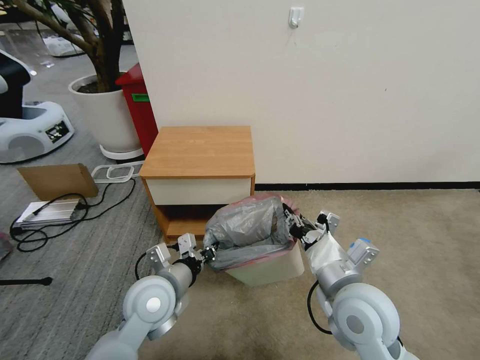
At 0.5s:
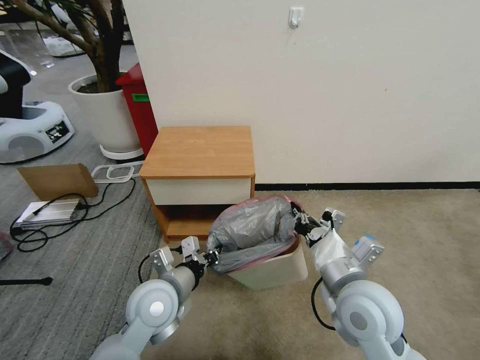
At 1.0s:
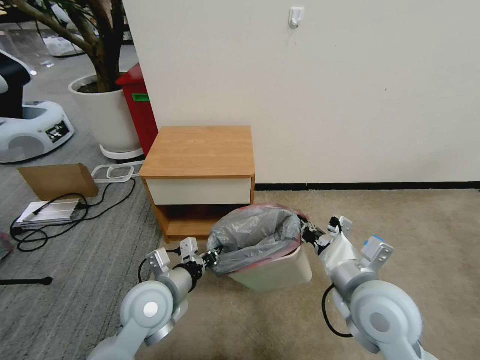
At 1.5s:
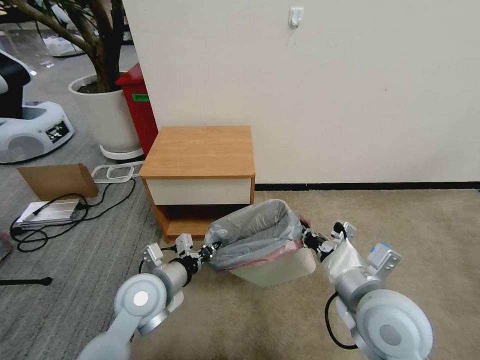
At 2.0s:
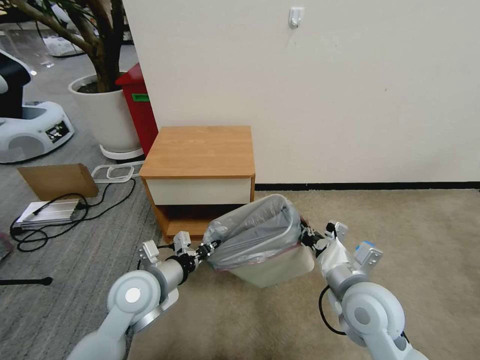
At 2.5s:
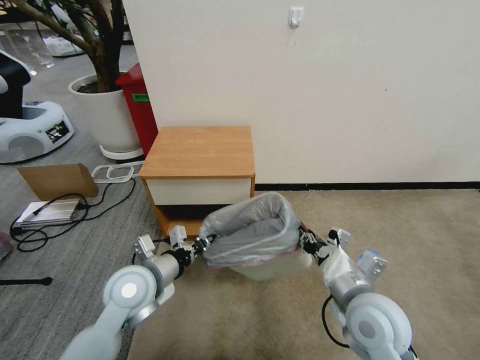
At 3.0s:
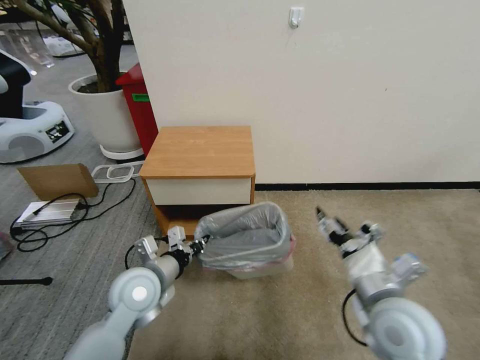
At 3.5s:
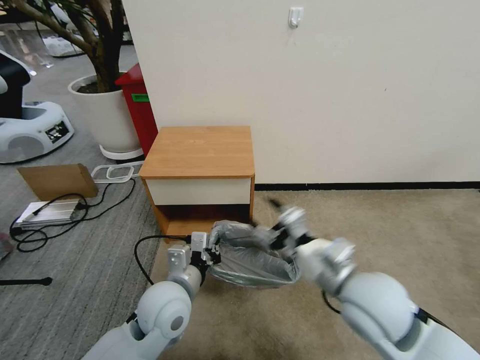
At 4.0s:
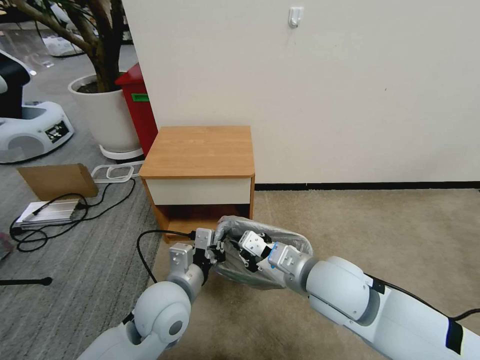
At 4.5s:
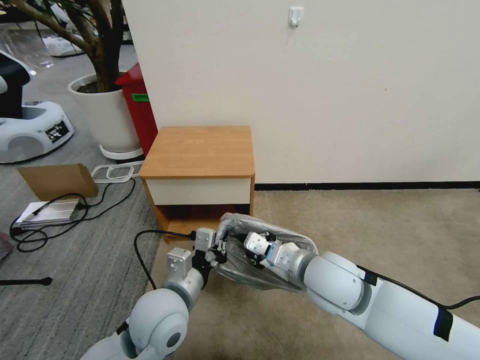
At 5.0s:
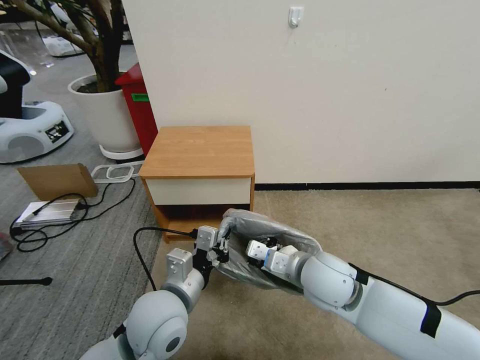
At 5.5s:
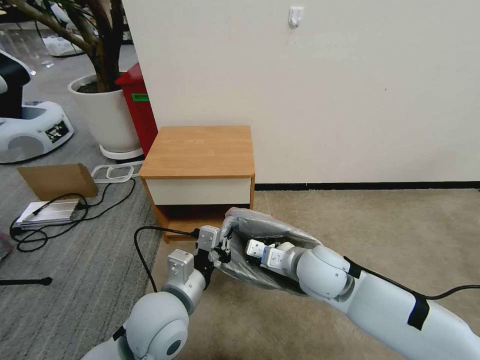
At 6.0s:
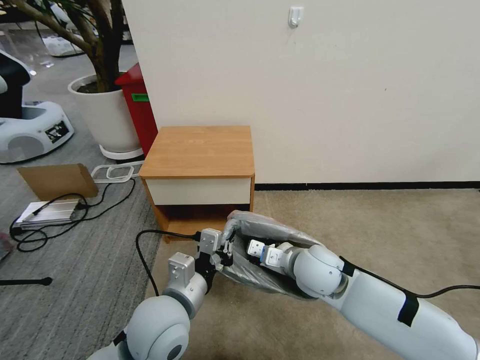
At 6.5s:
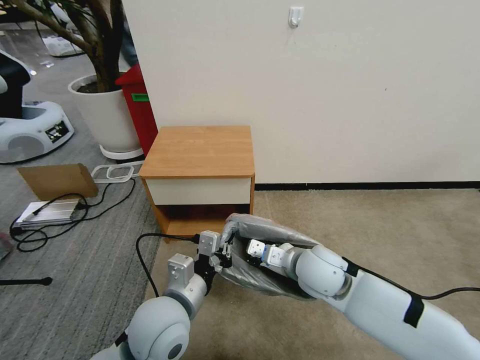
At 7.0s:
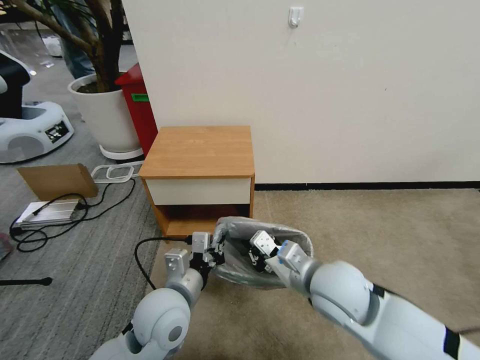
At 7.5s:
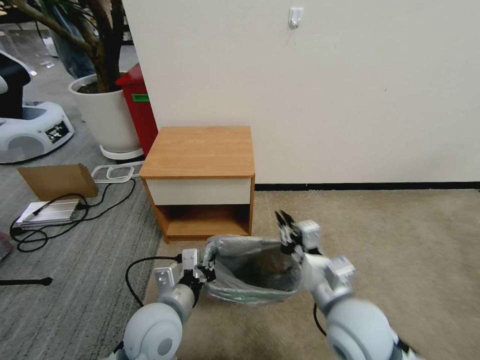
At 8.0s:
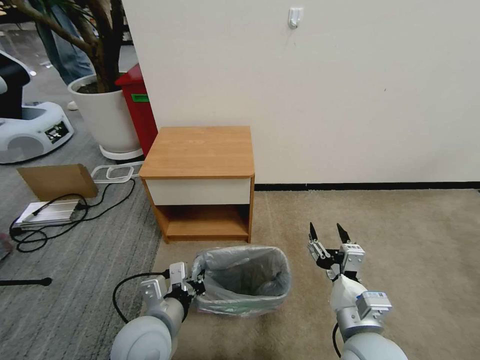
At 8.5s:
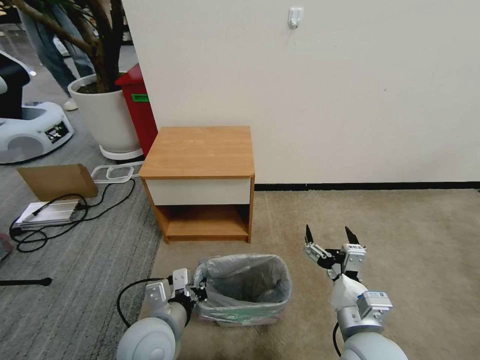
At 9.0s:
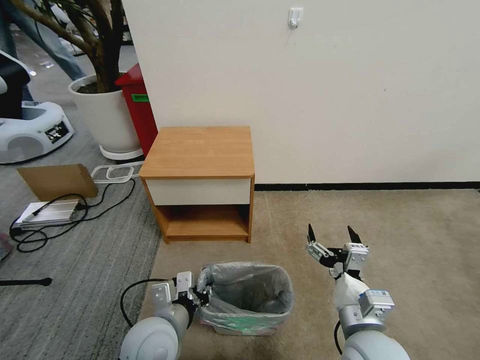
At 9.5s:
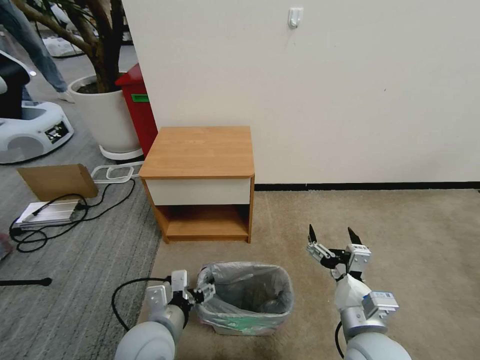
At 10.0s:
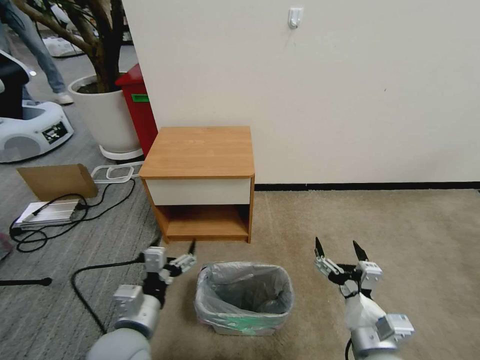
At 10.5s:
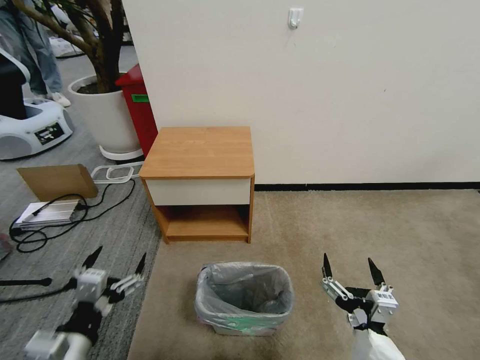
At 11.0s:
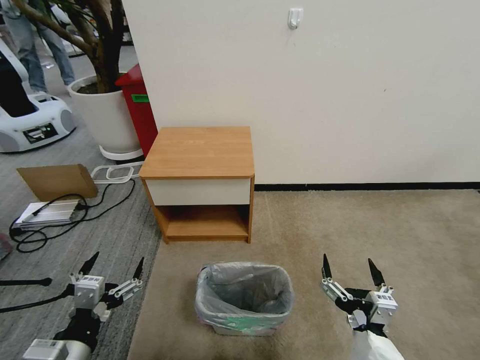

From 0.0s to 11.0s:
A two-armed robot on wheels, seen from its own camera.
Task of the whole recording: Pick up the garbage bag from the table and place it over the trash can.
From 0.0s to 2.0s: The grippers stay close to where they were, moving slightly.
From 2.0s to 3.5s: The right gripper moves upward, some 5 cm, and opens its fingers. Meanwhile the left gripper is displaced to the right by roughly 5 cm.
From 3.5s to 5.5s: The left gripper shifts by about 5 cm; the right gripper moves forward and downward, about 10 cm, and closes up.
From 5.5s to 7.5s: The right gripper is displaced backward by roughly 10 cm.
From 7.5s to 9.0s: The right gripper moves roughly 5 cm, and opens up.
From 9.0s to 11.0s: The right gripper moves backward, some 10 cm. The left gripper heads to the left and backward, covering roughly 15 cm, and opens its fingers.

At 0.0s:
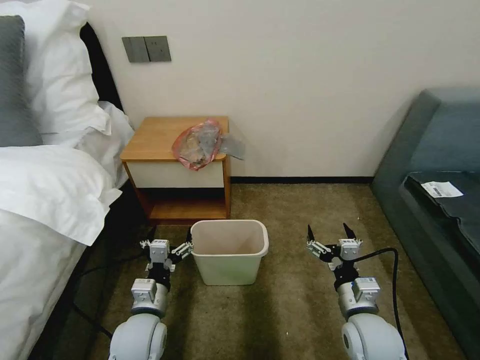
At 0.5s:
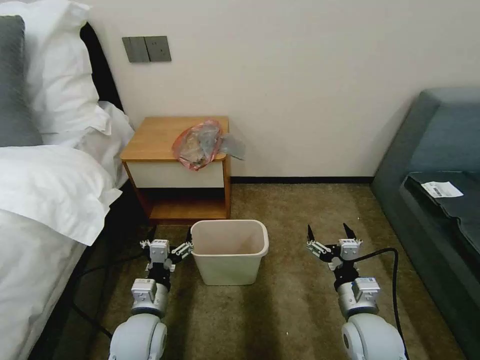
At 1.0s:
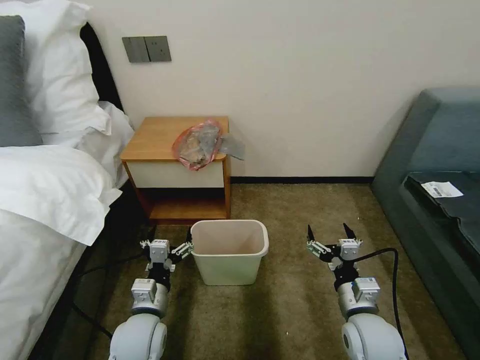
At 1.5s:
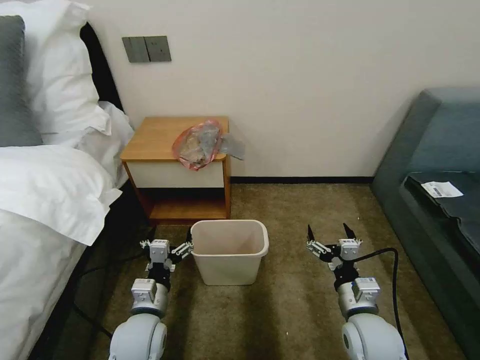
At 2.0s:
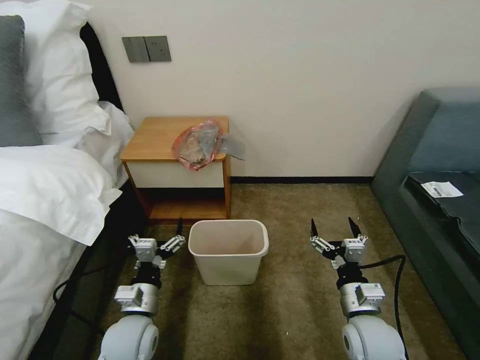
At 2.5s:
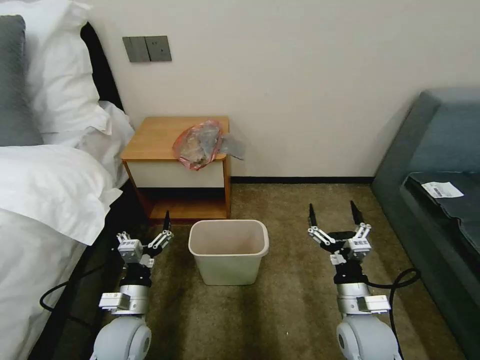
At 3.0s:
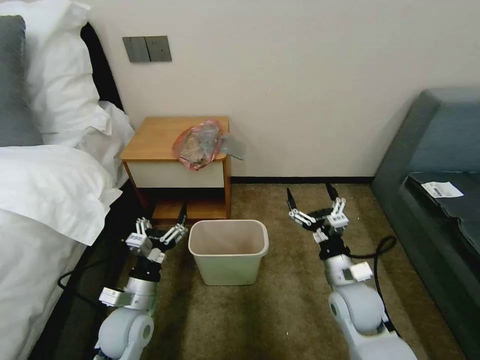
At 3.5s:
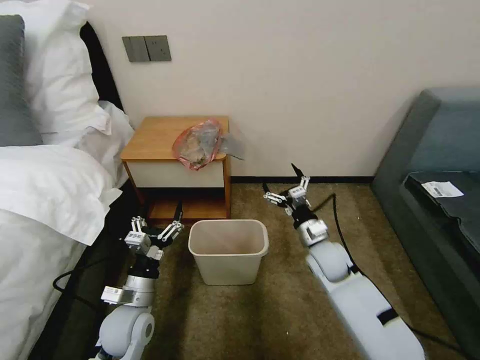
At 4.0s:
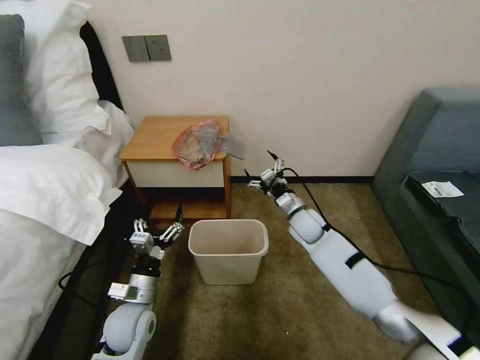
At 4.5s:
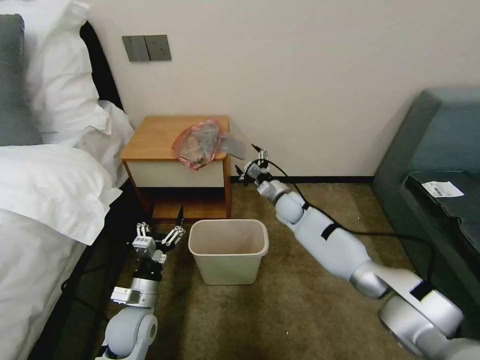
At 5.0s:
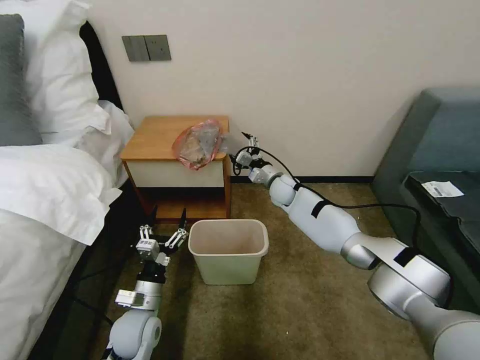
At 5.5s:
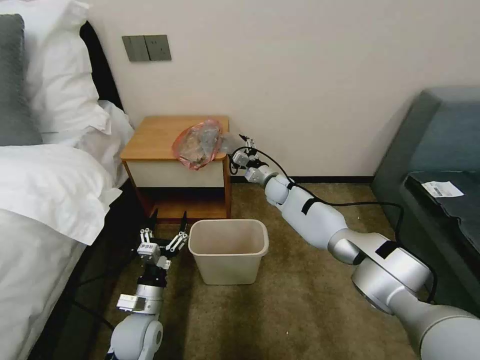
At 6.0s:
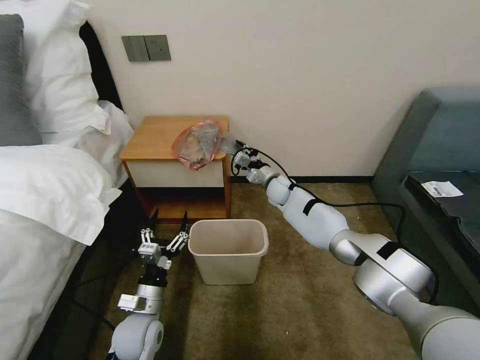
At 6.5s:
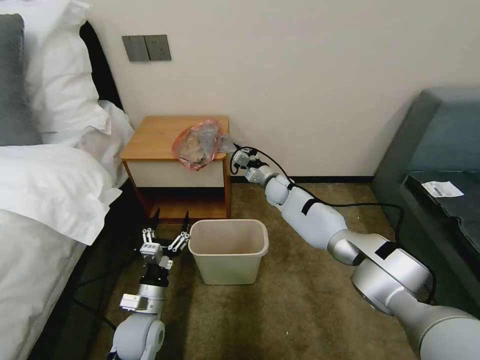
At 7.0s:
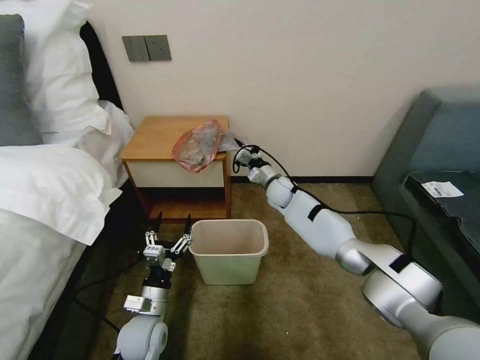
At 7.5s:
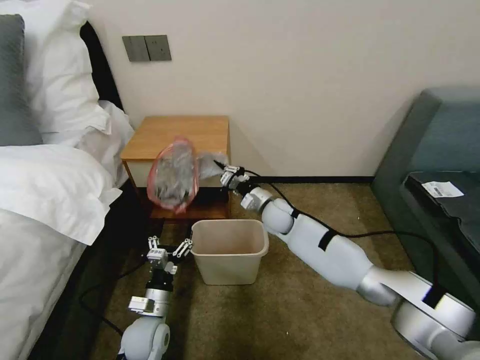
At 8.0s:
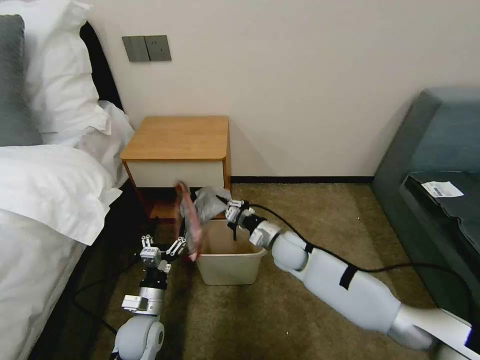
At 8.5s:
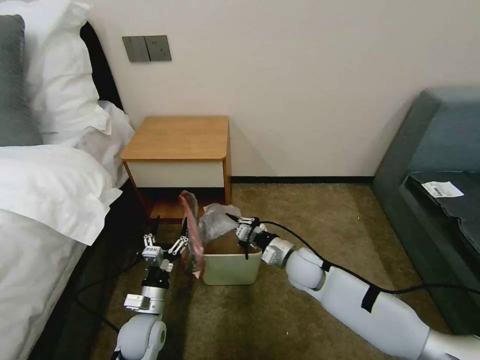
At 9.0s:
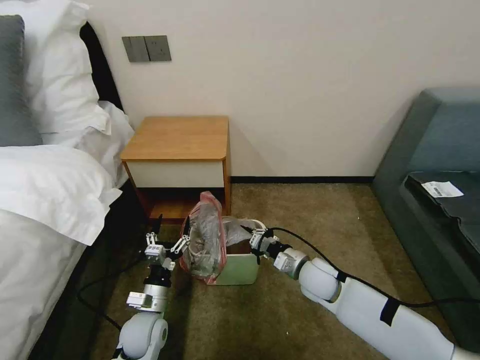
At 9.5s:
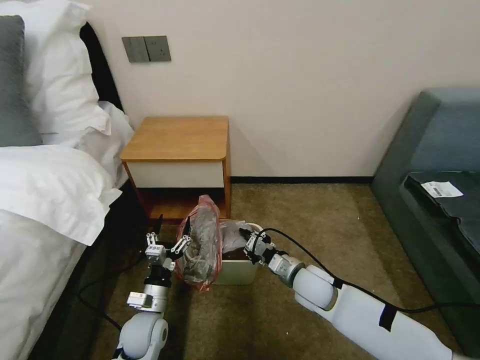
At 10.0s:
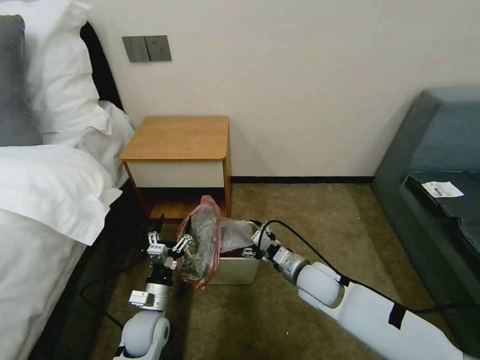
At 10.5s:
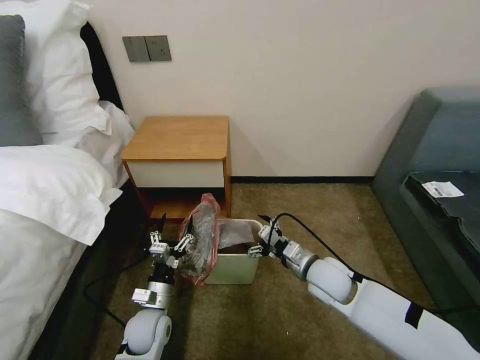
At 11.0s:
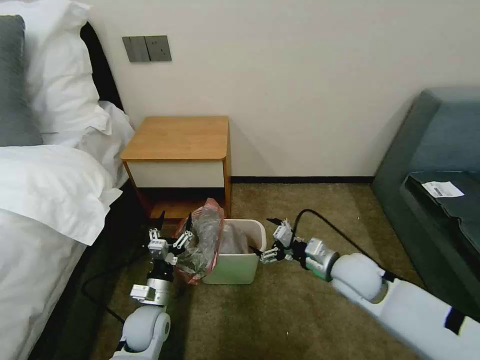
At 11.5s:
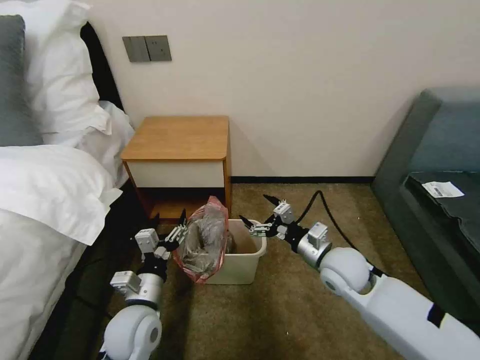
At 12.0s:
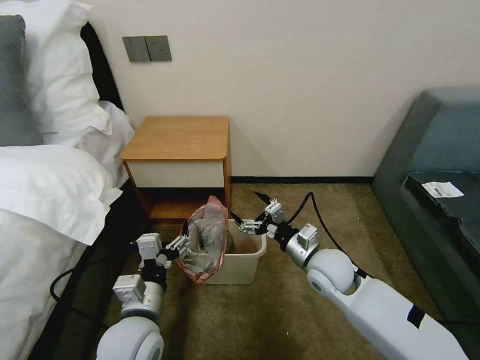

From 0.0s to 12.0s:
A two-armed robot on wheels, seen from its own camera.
Task of the whole recording: Pick up the garbage bag from the table and place it over the trash can.
From 2.0s to 4.0s: The right gripper goes roughly 25 cm forward.
From 4.0s to 6.0s: The right gripper travels forward and to the left by roughly 15 cm, and closes.
From 6.0s to 8.0s: The right gripper is displaced backward by approximately 20 cm, and closes.
From 8.0s to 10.0s: The right gripper shifts some 10 cm backward, and opens up.
From 10.0s to 12.0s: The right gripper is displaced upward by approximately 5 cm, while the left gripper is displaced upward by approximately 15 cm.

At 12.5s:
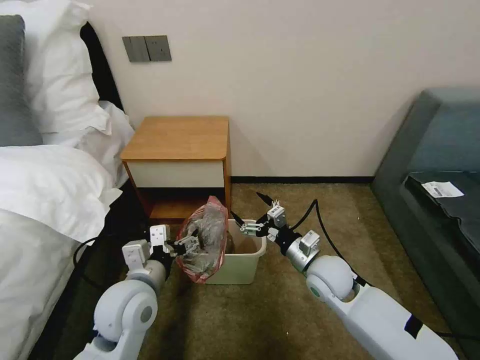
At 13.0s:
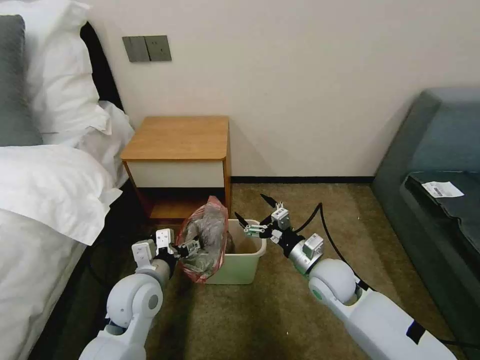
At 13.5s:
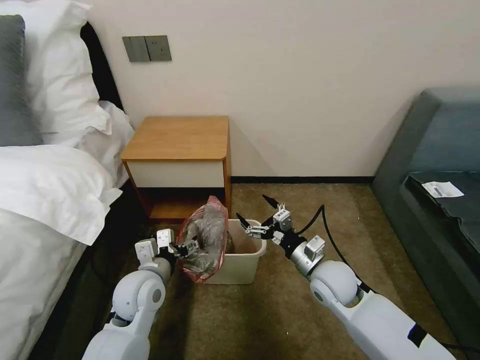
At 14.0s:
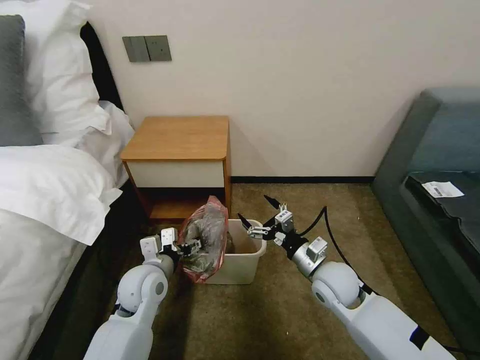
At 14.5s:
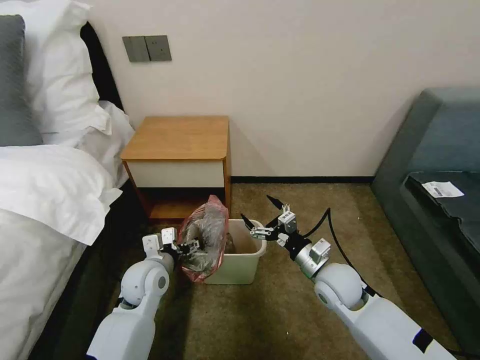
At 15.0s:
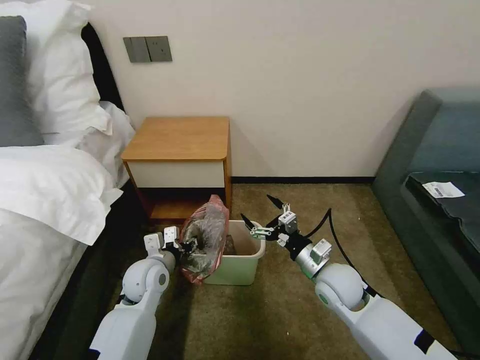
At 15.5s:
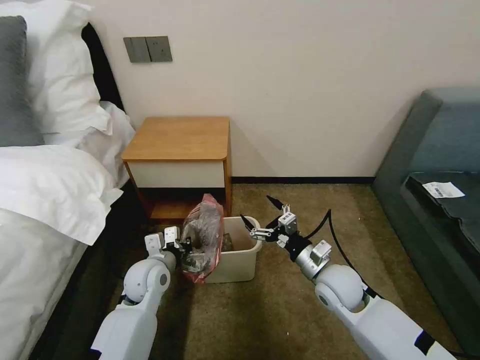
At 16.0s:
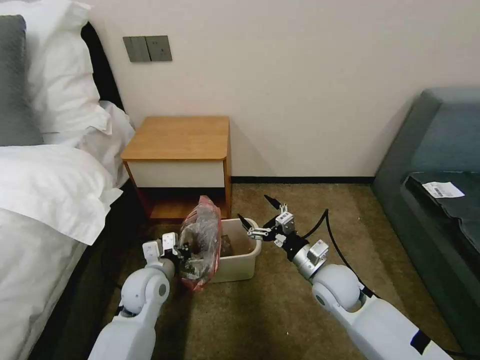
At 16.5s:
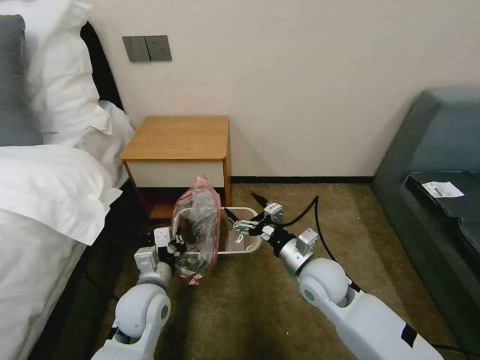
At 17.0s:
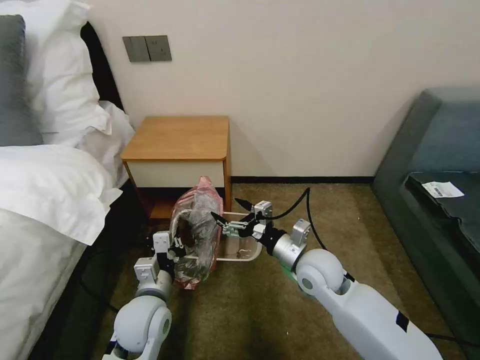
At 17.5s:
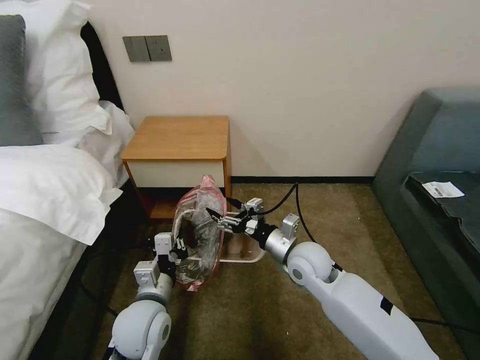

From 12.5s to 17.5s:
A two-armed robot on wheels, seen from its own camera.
Task of the whole recording: Pick up the garbage bag from the table and place it over the trash can.
From 12.5s to 15.0s: The left gripper shifts some 15 cm downward and forward, and closes.
From 15.0s to 17.5s: The right gripper travels to the left by about 5 cm. The left gripper travels backward by about 10 cm, and closes up.
